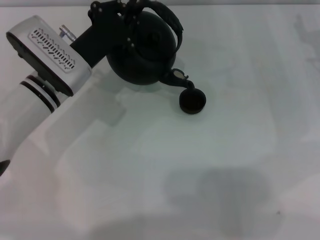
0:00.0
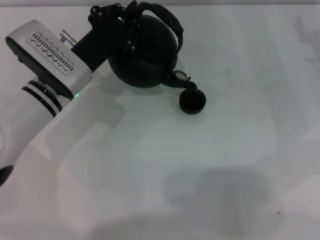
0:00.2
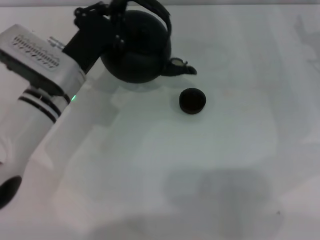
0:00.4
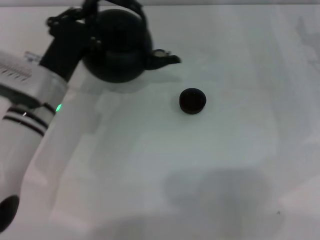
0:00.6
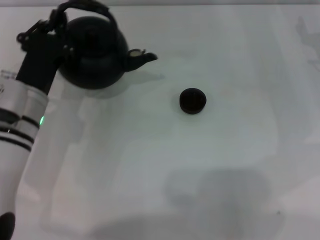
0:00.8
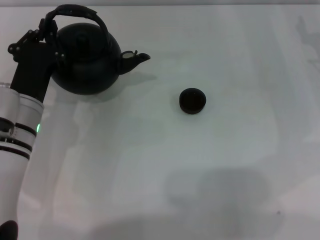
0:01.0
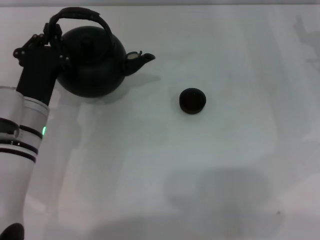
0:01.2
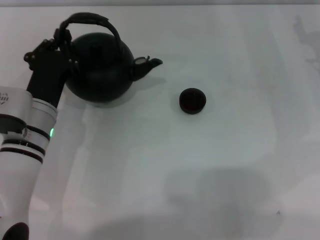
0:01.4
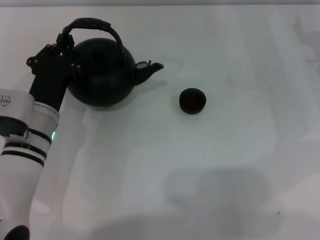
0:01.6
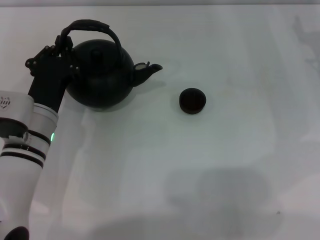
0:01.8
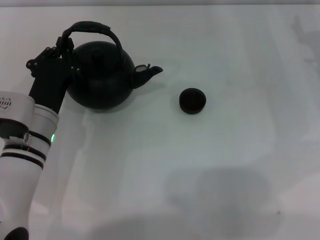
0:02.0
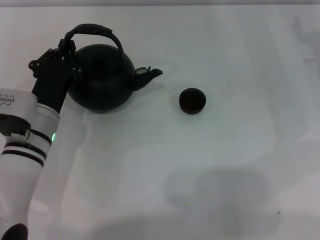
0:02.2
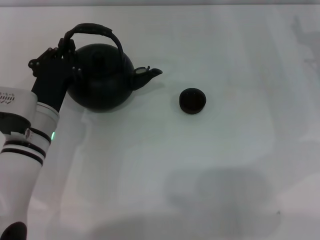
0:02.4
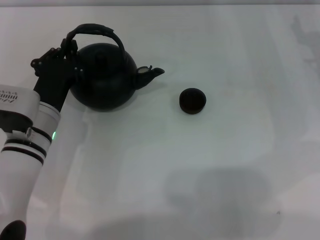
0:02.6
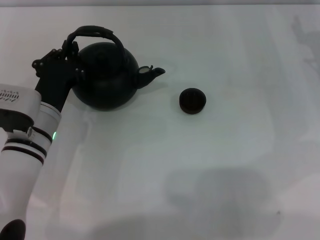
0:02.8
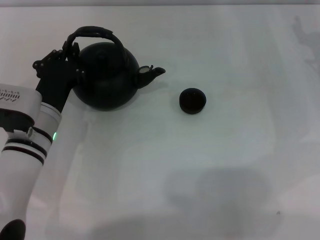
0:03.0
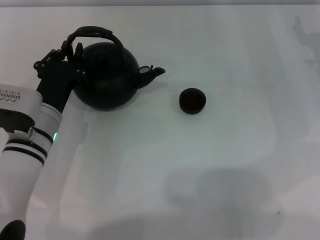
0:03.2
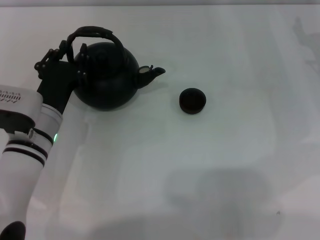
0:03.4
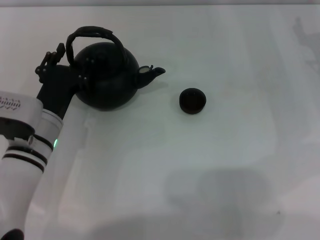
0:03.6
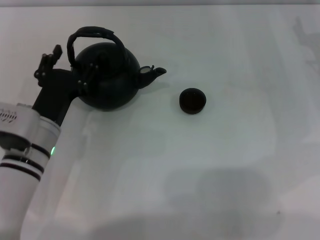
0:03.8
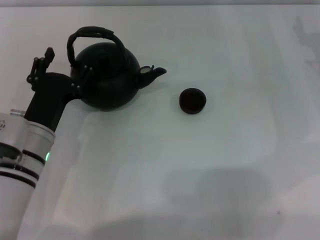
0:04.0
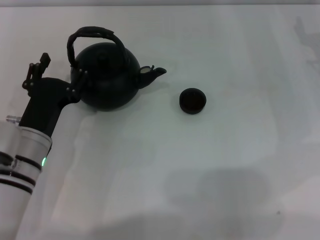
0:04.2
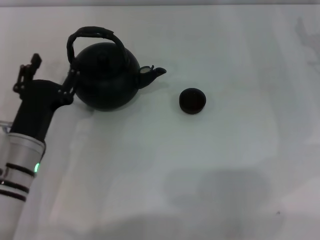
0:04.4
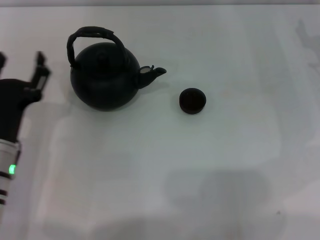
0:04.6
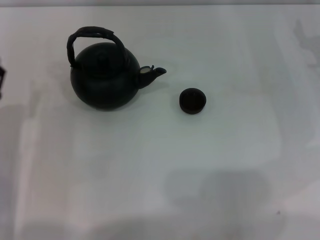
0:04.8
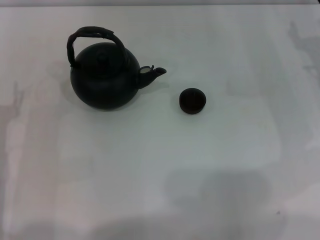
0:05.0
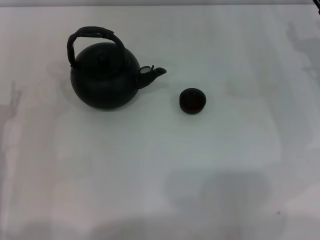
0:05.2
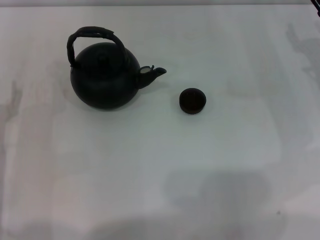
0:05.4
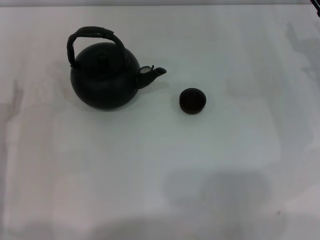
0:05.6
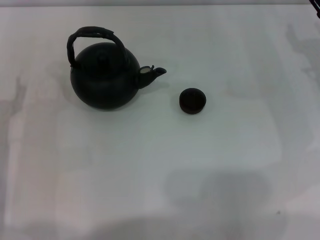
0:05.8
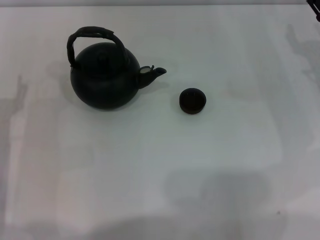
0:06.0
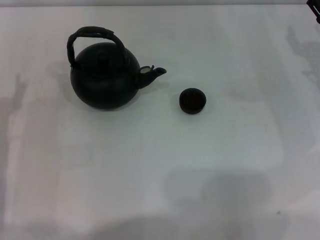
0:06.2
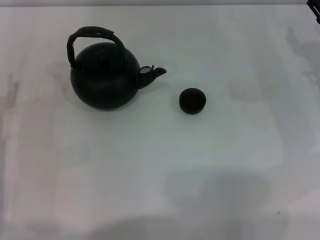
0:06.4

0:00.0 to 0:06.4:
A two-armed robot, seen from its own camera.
Task of the whole recording: Grasp the handle of the teapot with one hand and pour tea into the teacup.
Step, 0:00.6 to 0:04.4: Put down the teapot with the left gripper.
0:00.0 to 0:01.6: The left gripper is displaced backward by roughly 5 cm.
0:01.6 to 0:03.2: The grippers stay close to where they were, moving slightly.
0:03.2 to 0:04.8: The left gripper travels to the left and backward by about 10 cm, and opens.
0:04.8 to 0:06.4: The grippers stay close to where they were, moving slightly.
